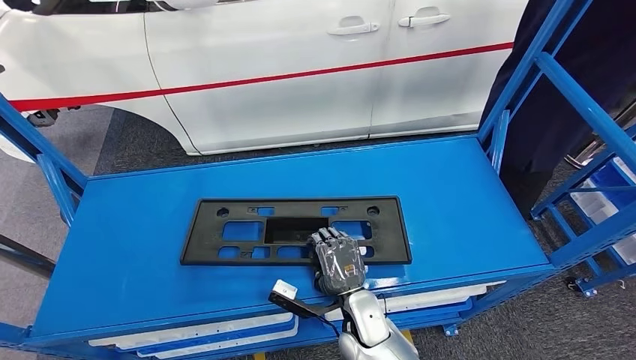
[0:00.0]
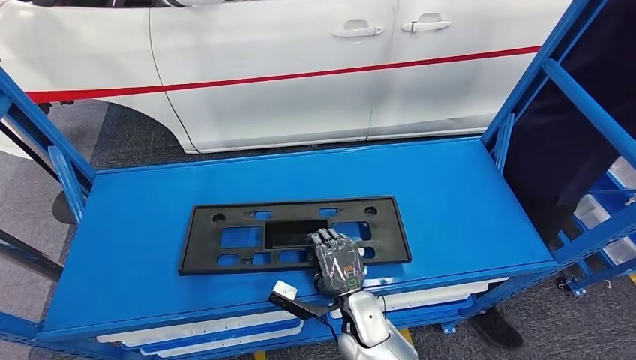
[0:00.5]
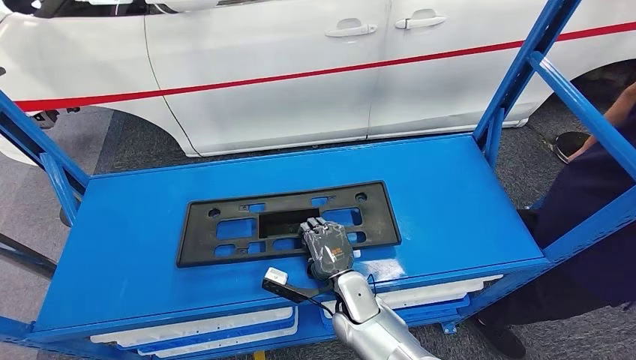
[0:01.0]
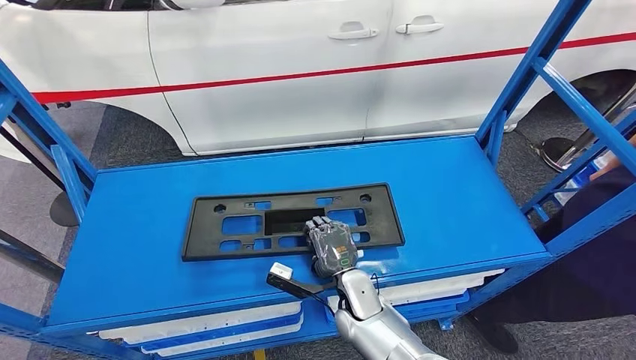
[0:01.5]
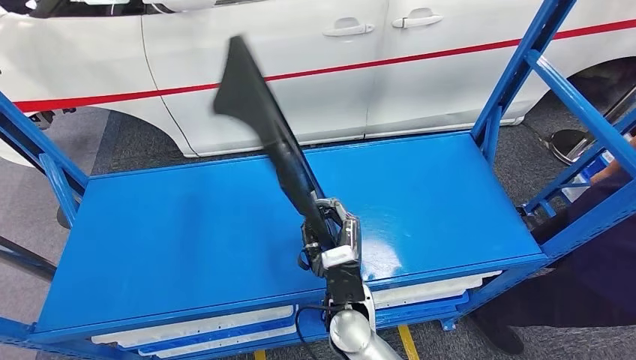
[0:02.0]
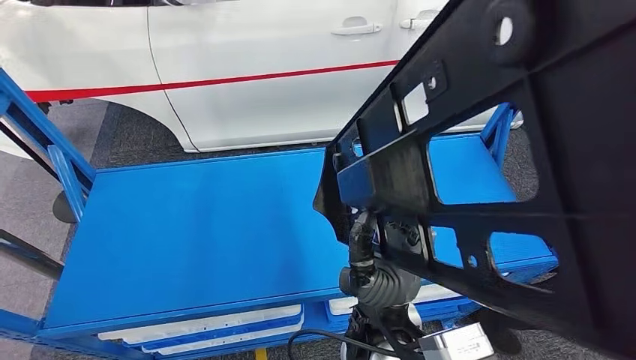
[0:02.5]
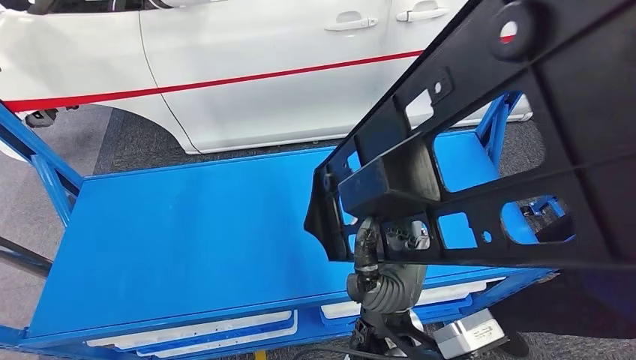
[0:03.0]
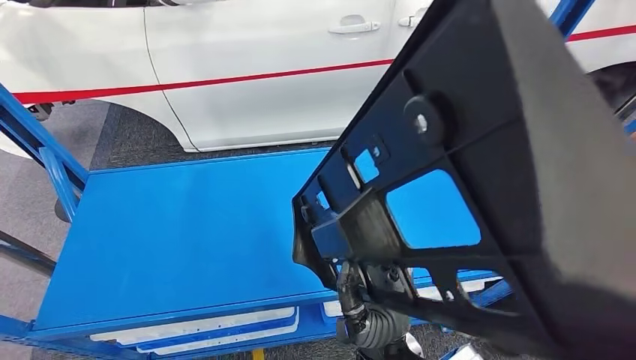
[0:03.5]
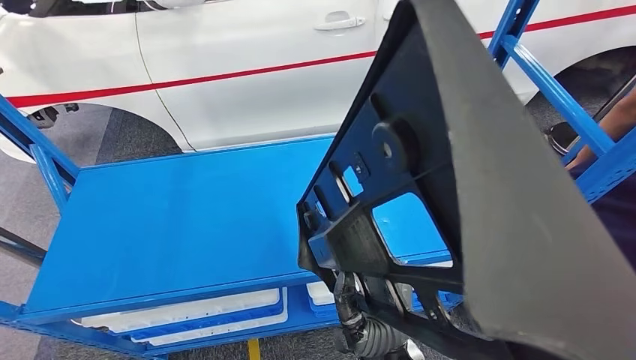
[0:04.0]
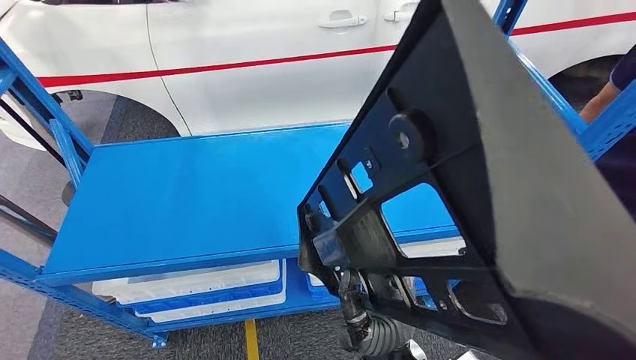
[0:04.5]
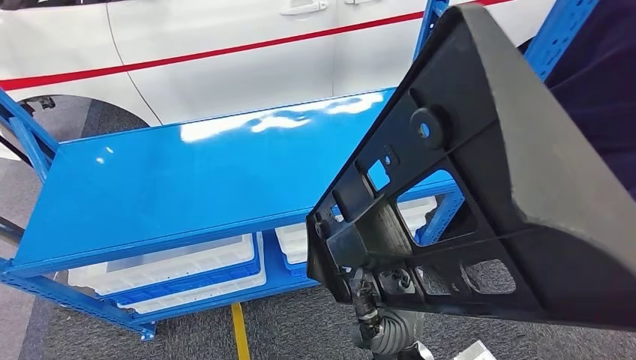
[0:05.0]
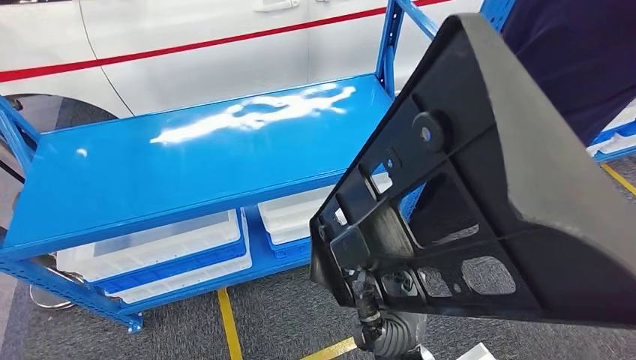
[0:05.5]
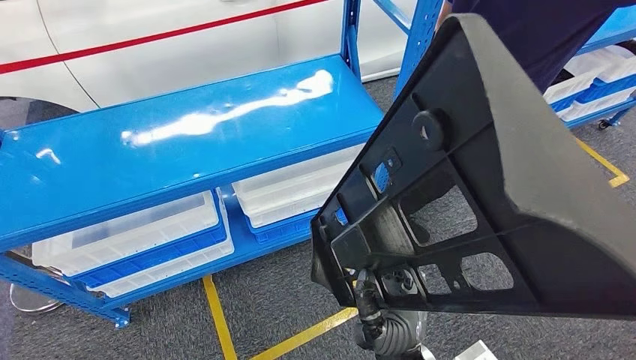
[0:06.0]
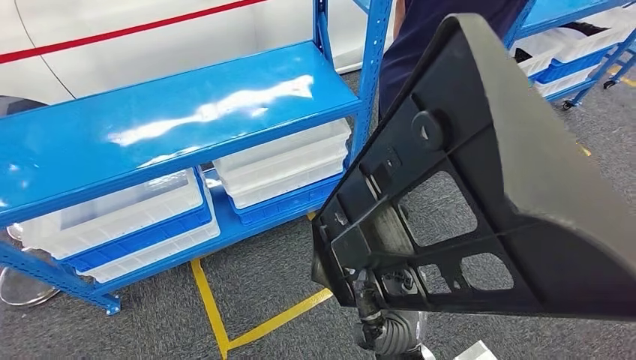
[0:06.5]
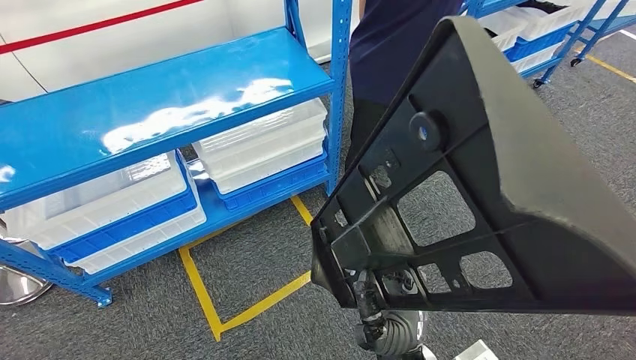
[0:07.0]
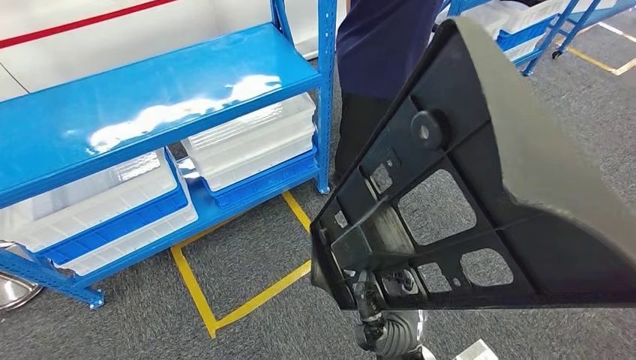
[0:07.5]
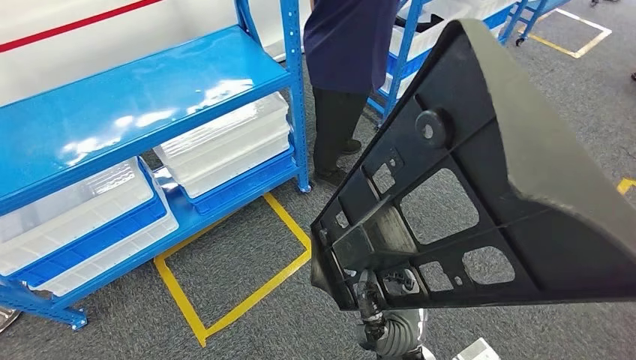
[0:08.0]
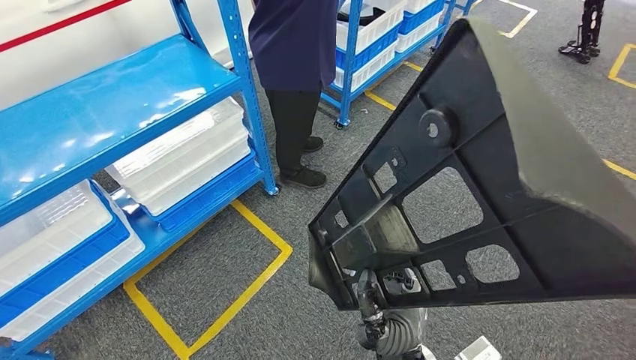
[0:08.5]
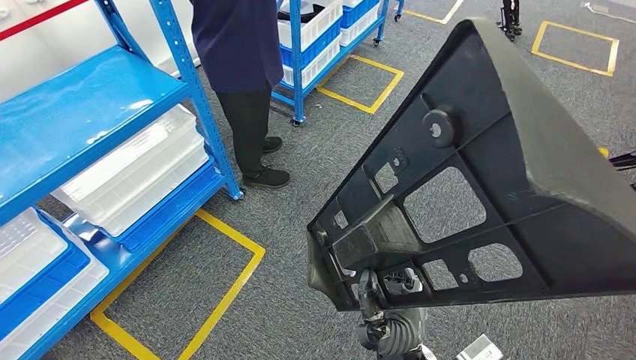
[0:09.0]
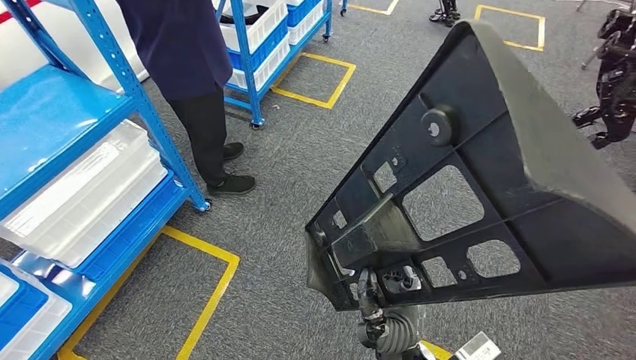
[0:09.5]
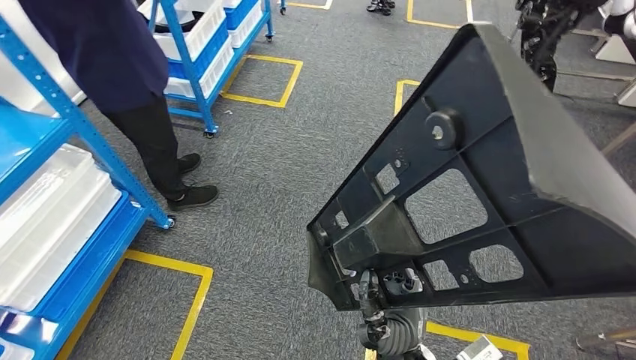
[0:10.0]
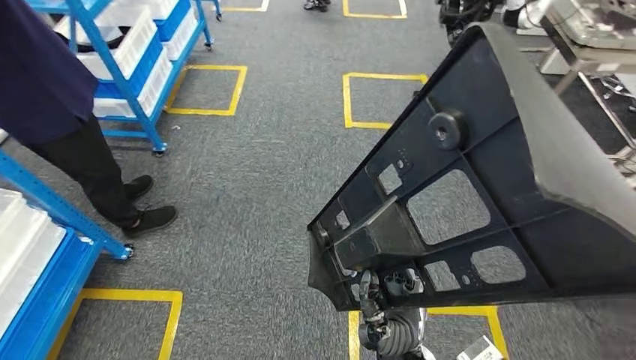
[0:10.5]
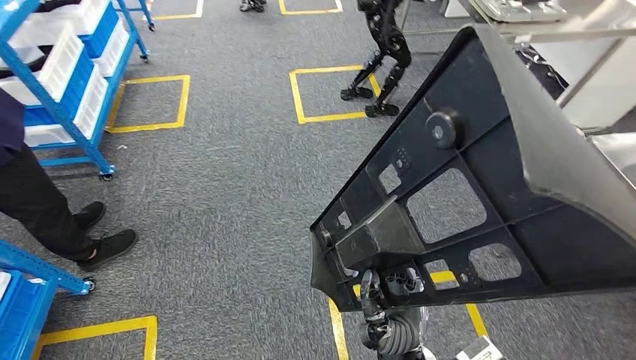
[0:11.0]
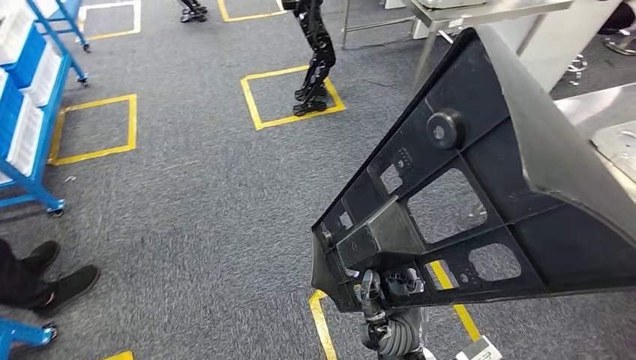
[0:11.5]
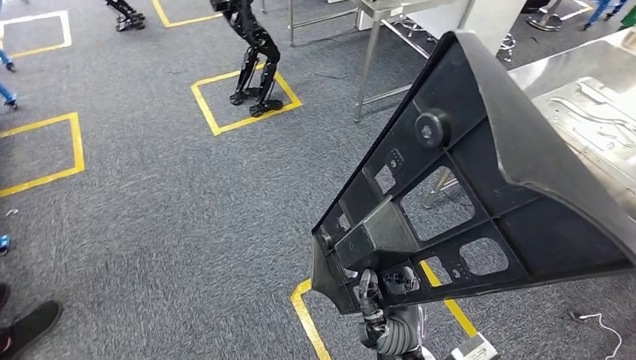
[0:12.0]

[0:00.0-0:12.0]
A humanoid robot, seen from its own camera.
Step, 0:00.0 to 0:02.5: Pick up the large parts from the shelf.

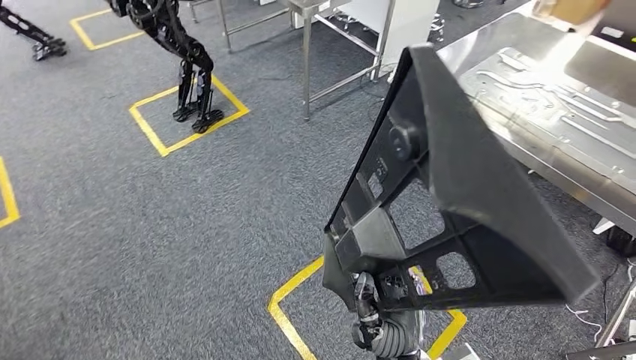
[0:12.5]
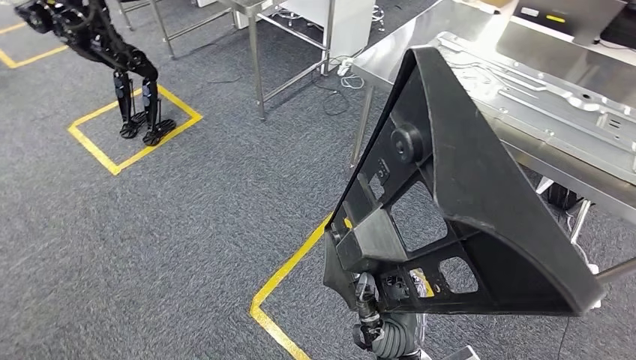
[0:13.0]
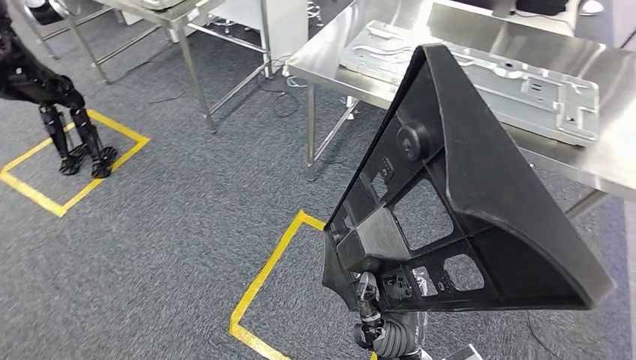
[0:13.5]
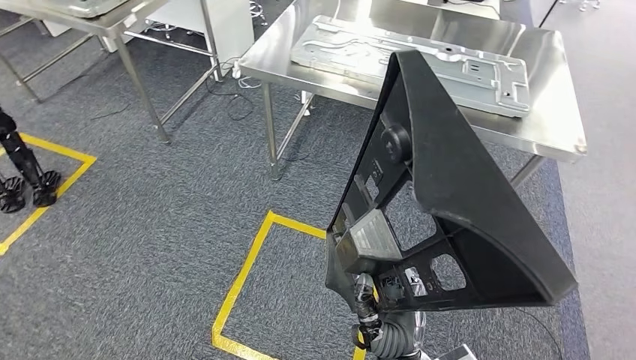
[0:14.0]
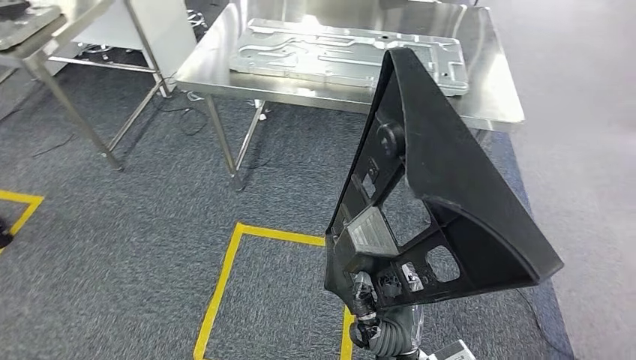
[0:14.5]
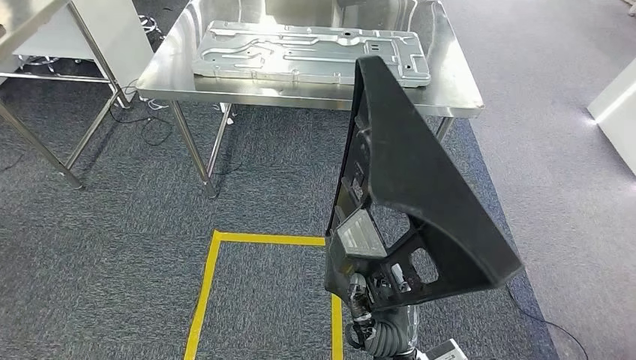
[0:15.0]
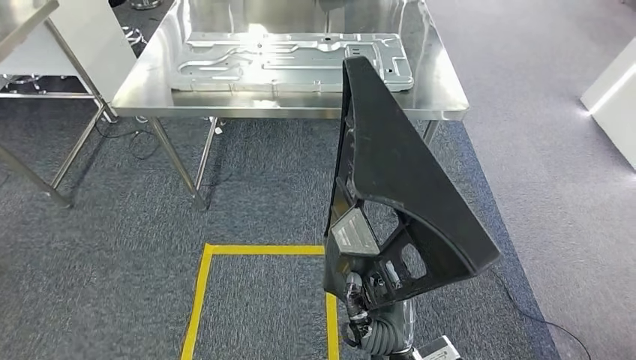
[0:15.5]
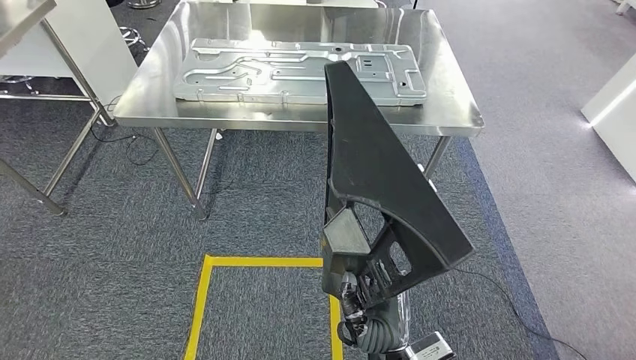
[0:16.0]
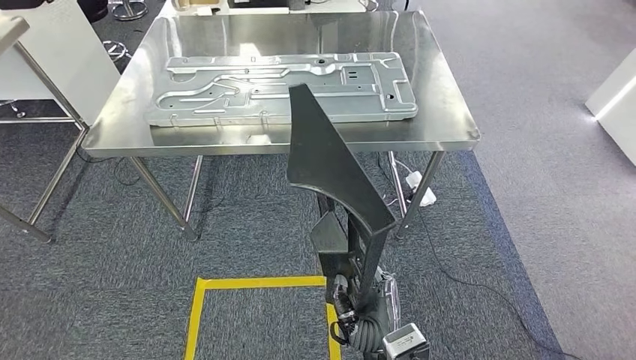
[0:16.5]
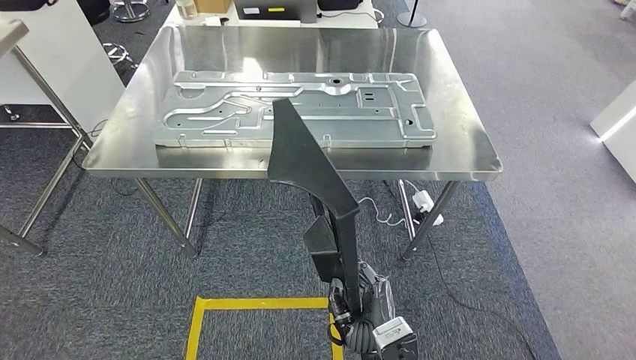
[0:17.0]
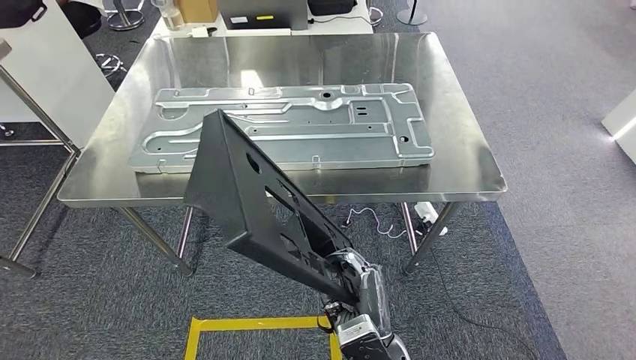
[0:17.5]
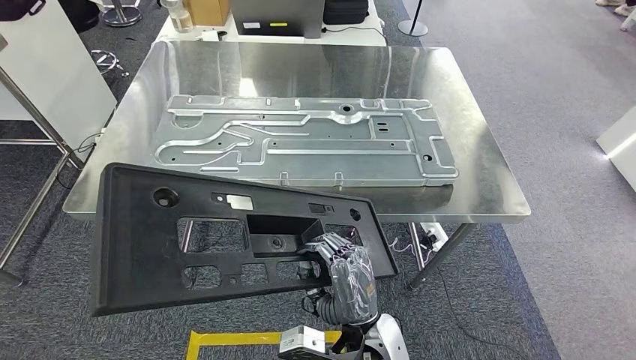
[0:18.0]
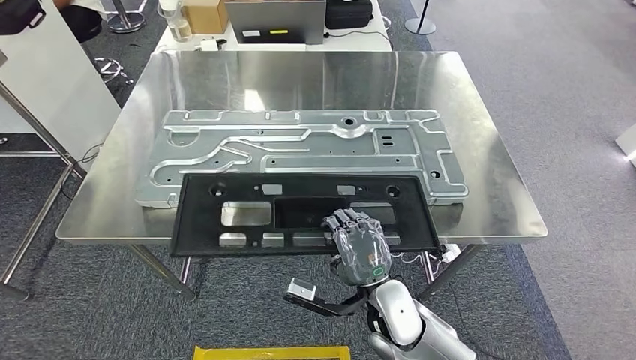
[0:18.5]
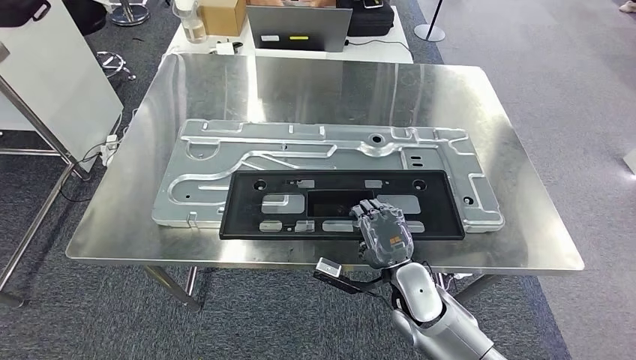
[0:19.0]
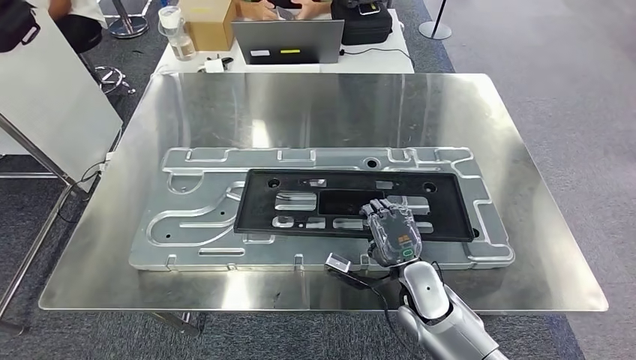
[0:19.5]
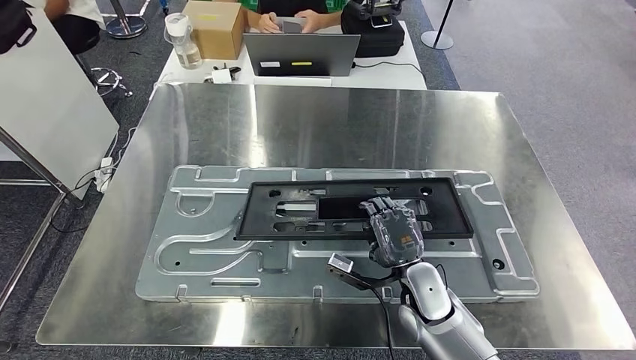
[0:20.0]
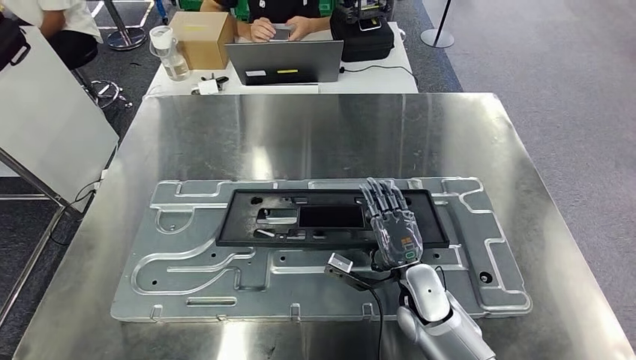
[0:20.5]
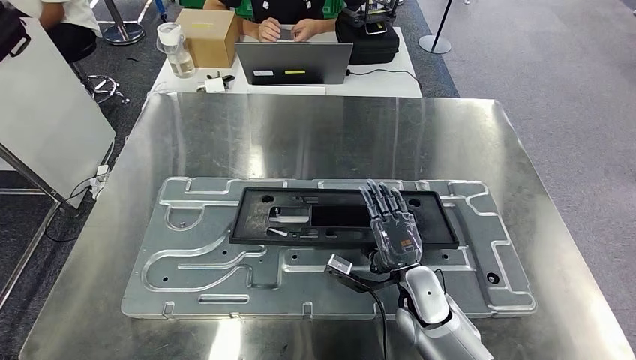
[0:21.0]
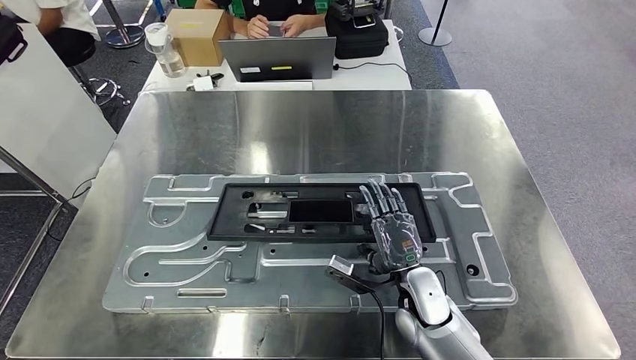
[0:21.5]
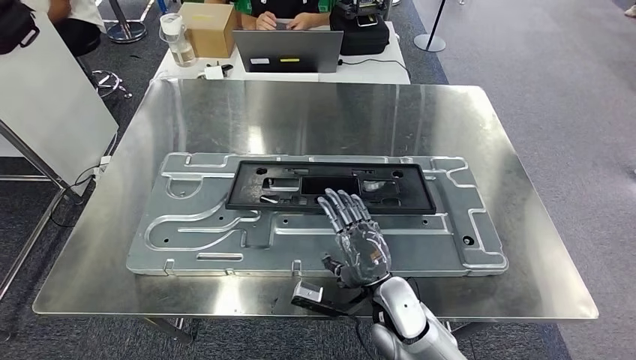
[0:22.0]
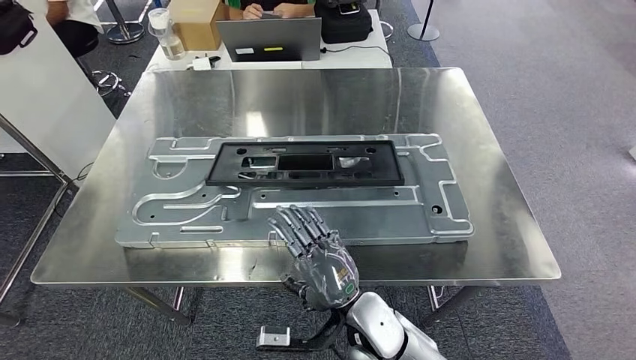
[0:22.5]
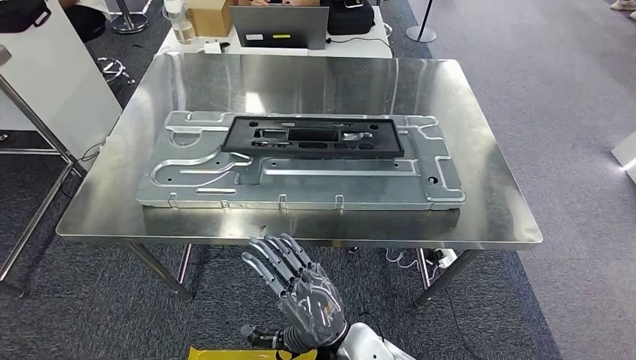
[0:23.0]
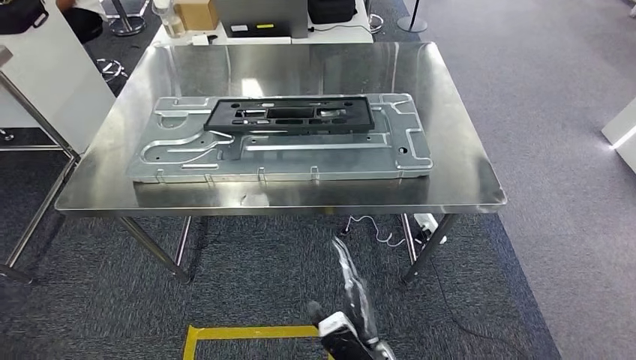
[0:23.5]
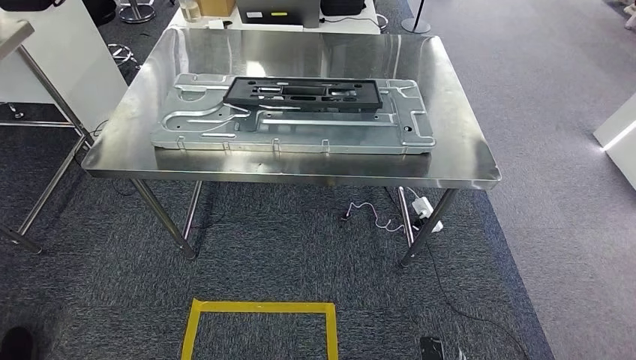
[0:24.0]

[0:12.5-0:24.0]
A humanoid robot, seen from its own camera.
Step, 0:12.5 to 0:16.5: Move the large parts to the workbench.
Step, 0:17.0 to 0:23.5: Insert the large parts into the corresponding slots on the workbench.
